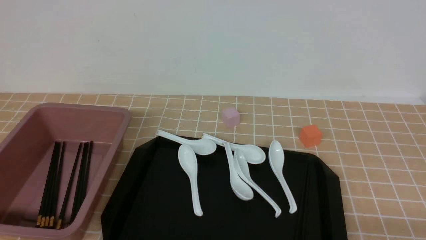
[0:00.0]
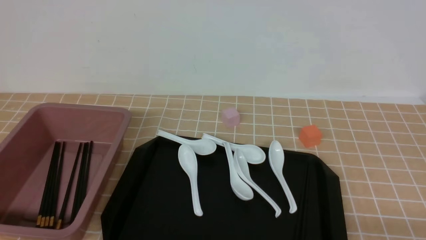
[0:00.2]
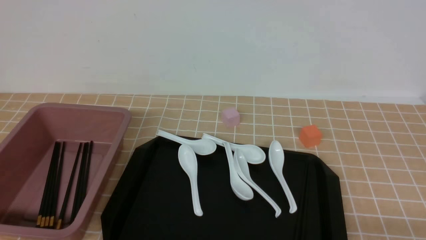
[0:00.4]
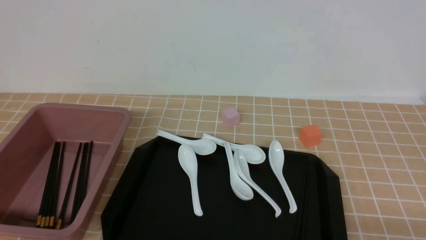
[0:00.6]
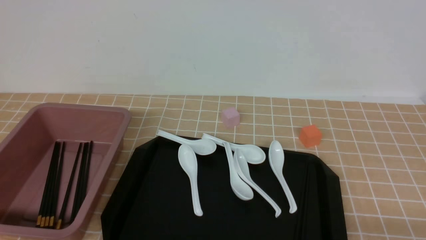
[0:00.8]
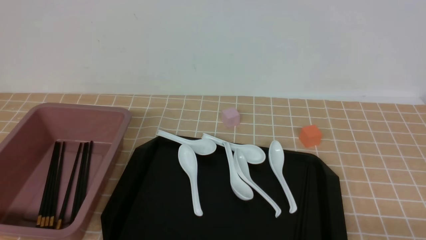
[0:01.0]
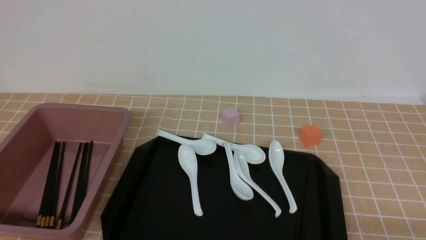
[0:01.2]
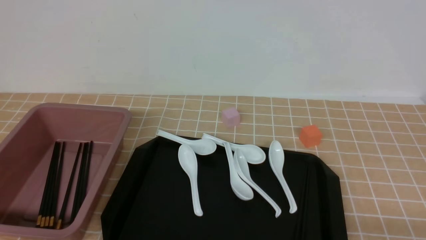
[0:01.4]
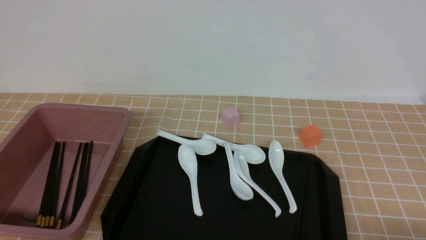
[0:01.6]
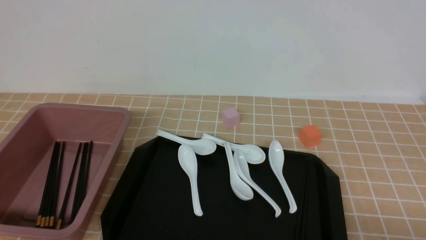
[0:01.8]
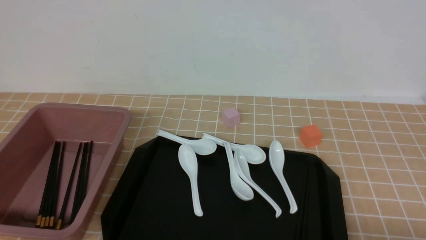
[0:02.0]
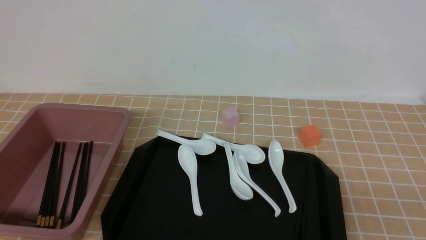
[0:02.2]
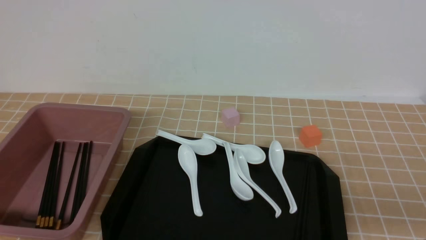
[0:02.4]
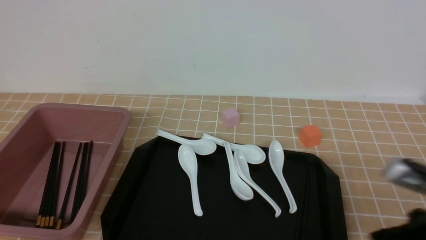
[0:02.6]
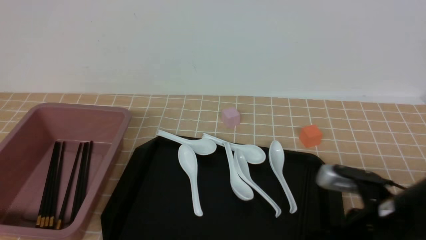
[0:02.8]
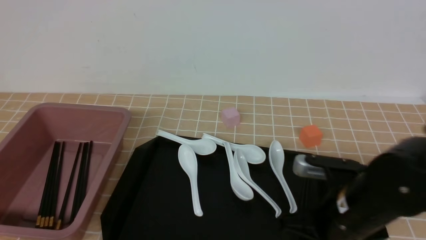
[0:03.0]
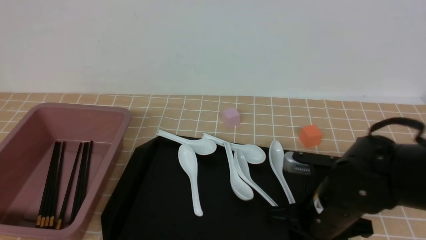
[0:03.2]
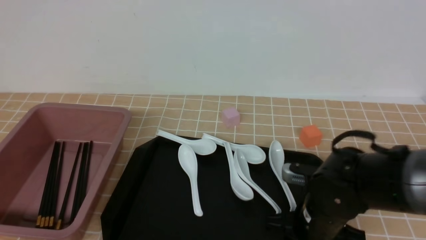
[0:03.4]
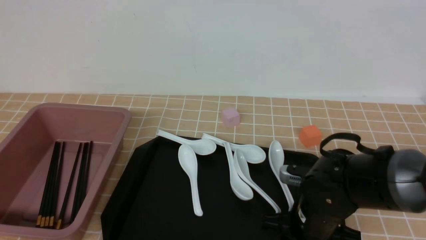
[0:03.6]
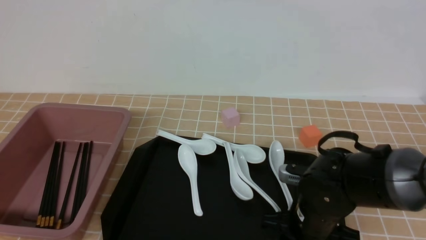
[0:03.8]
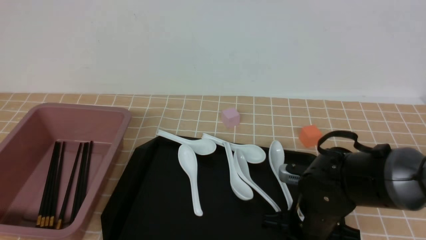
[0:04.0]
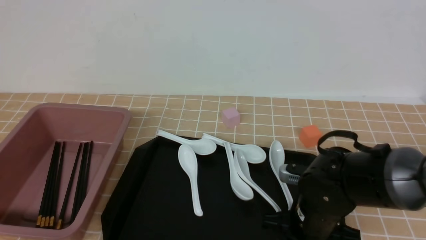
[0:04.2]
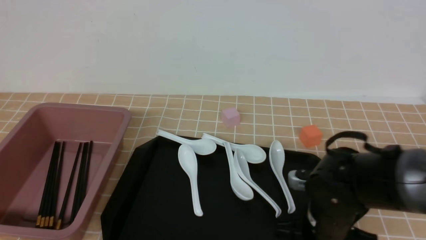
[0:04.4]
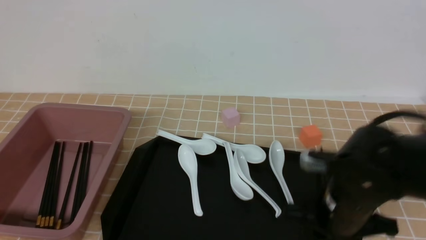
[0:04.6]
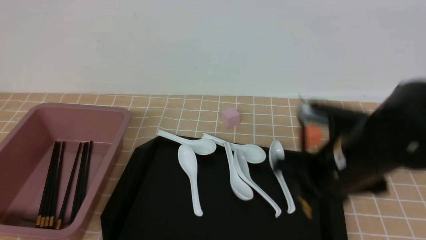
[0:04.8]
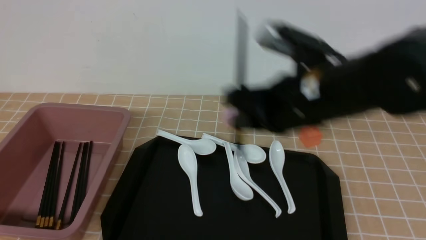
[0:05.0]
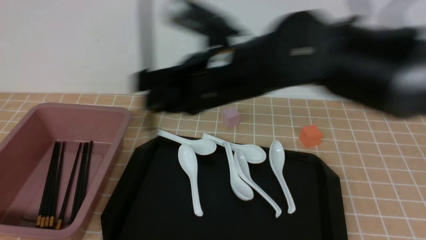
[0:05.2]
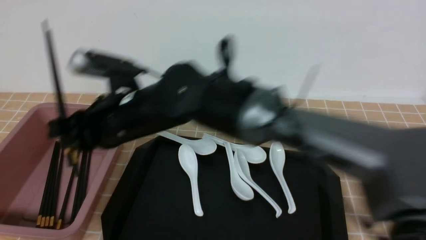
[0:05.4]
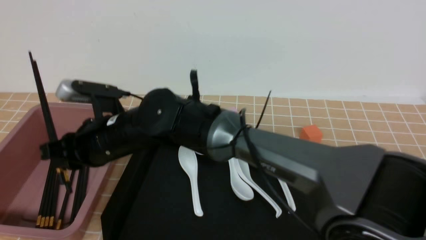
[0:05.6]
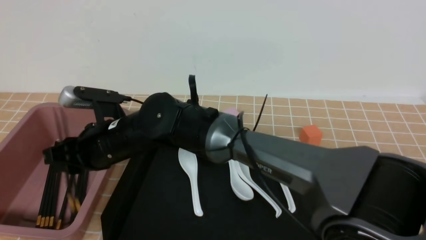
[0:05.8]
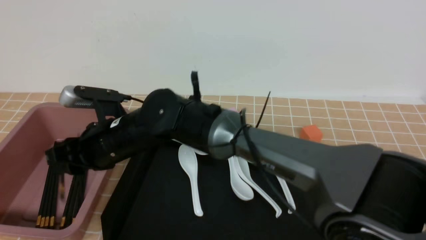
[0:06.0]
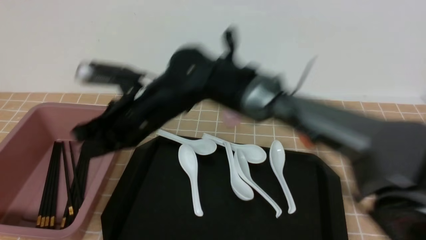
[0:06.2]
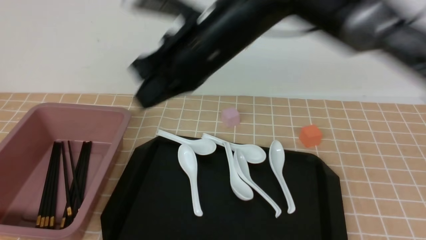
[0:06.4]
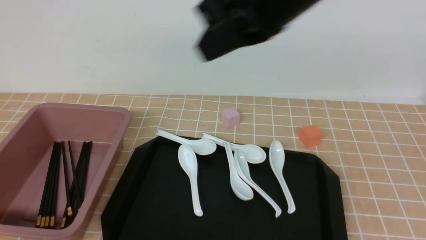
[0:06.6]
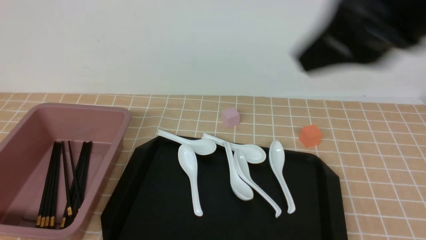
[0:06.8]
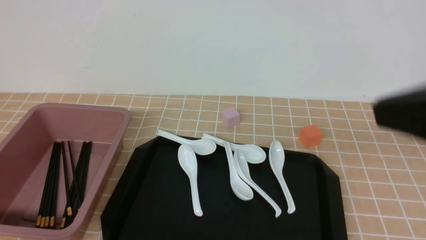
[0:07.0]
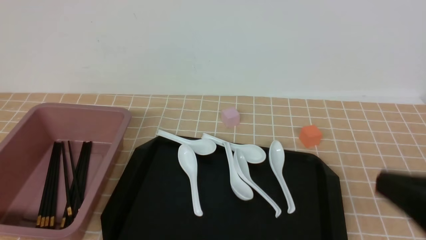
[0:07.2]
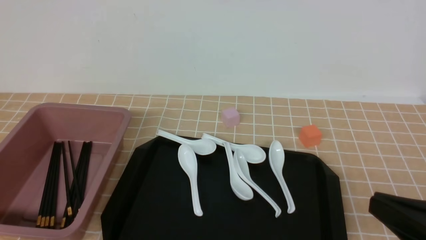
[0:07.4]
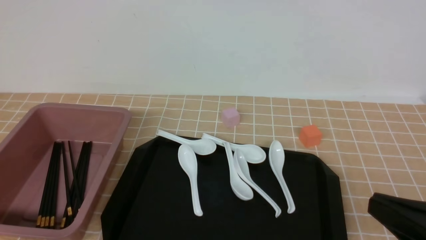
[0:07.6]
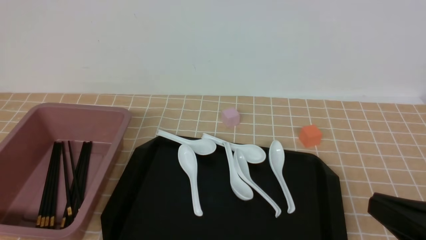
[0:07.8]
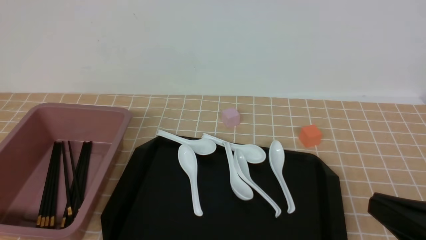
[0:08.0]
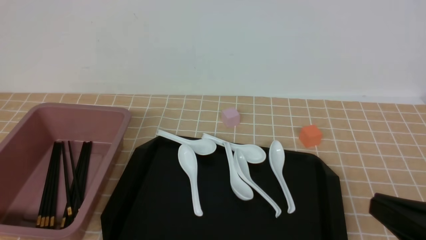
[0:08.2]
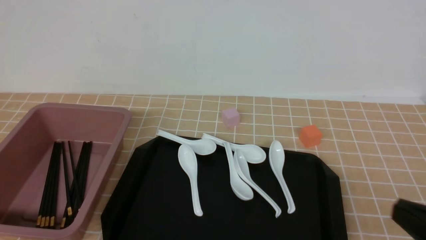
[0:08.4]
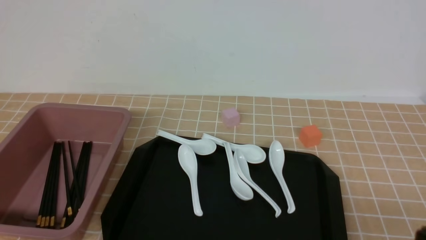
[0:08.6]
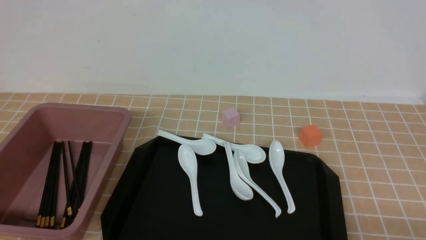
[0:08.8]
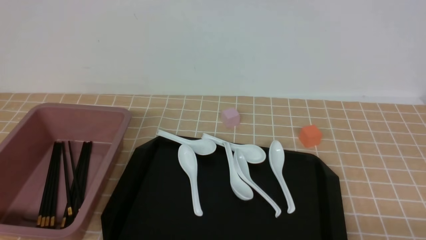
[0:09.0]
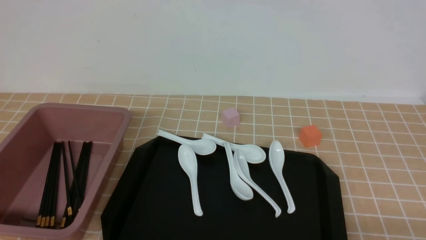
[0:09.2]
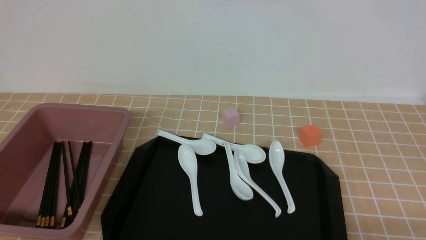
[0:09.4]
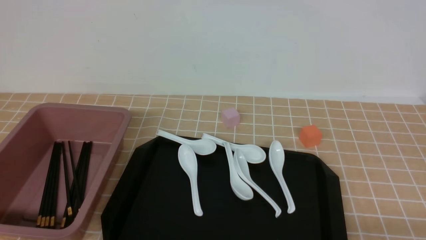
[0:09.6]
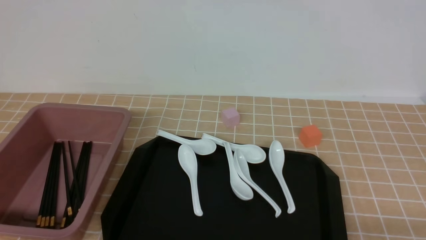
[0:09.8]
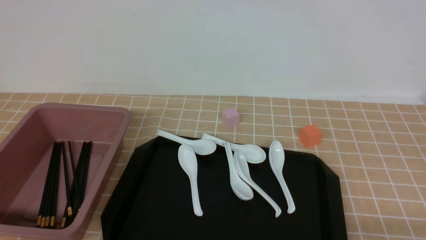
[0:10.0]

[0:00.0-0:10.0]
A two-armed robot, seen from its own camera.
Step, 0:00.0 to 0:04.6: use the right arm to grab a pair of chopsticks.
Step, 0:04.8 to 0:06.0: use the right arm to put the chopsticks into the lunch box.
0:01.4 to 0:02.8: The right gripper travels forward, to the left and upward by approximately 15 cm.
0:02.8 to 0:04.2: The right gripper shifts approximately 15 cm downward, to the left and forward, and opens and closes again.
0:04.2 to 0:05.8: The right gripper travels to the left by some 25 cm.
0:05.8 to 0:07.2: The right gripper is displaced to the right and backward by about 40 cm, and closes up.
0:07.2 to 0:08.6: The right gripper travels downward and to the right by some 15 cm.

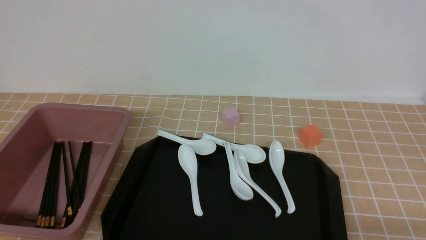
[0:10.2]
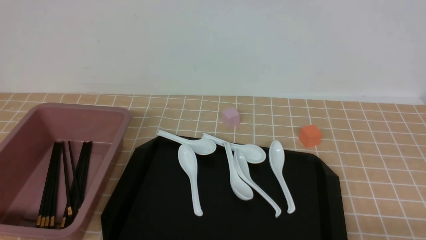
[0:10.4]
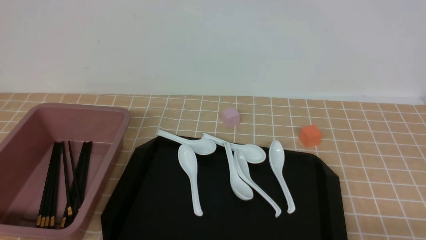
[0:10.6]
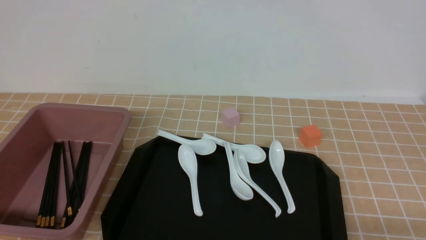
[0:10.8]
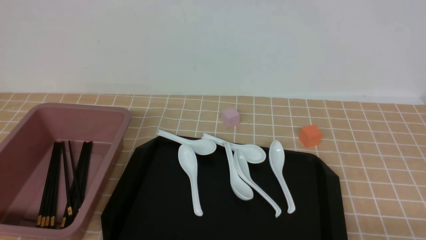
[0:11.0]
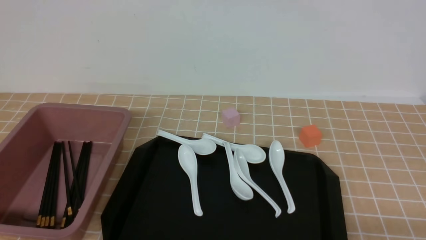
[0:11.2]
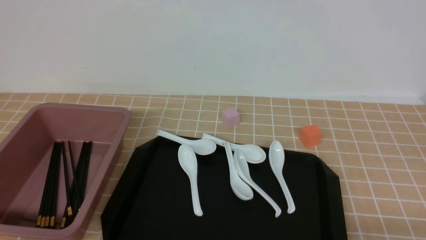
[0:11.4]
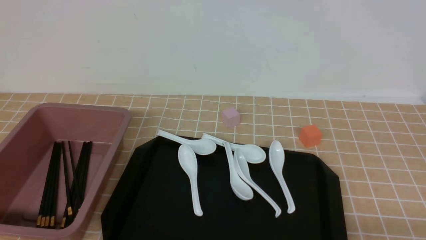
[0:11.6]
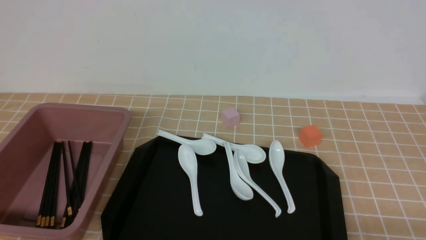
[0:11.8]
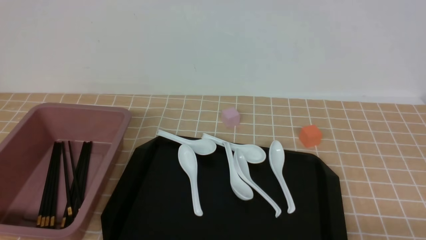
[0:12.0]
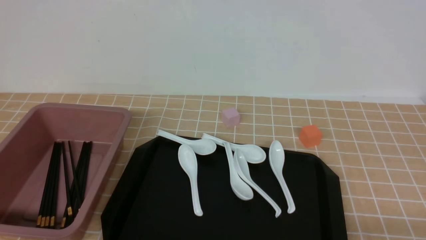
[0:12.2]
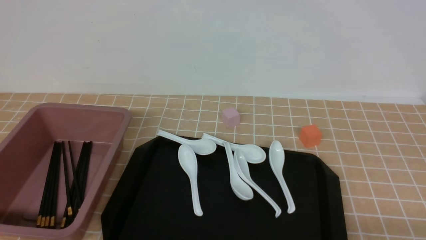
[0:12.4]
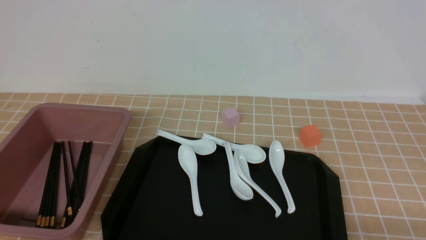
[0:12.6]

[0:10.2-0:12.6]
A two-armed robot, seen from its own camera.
0:10.2 to 0:12.6: The two grippers keep their place.

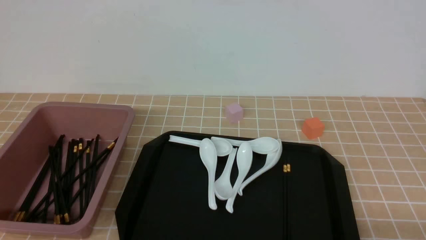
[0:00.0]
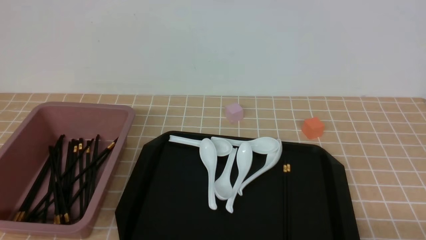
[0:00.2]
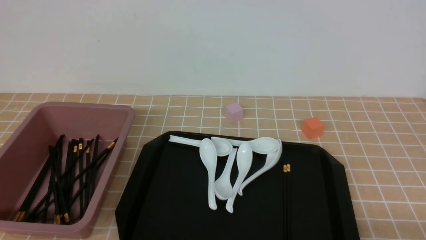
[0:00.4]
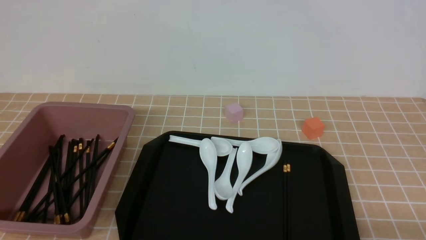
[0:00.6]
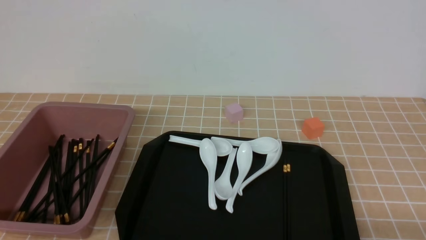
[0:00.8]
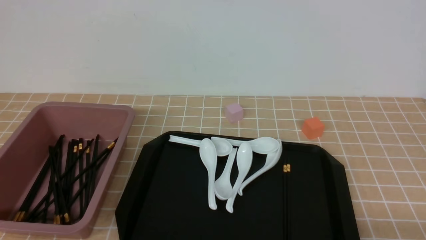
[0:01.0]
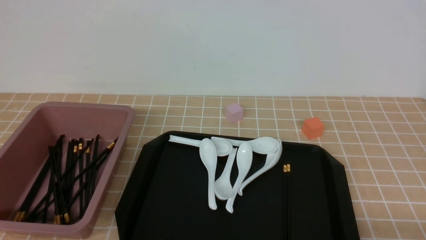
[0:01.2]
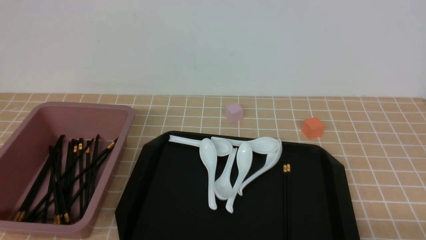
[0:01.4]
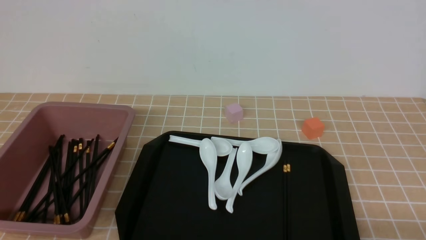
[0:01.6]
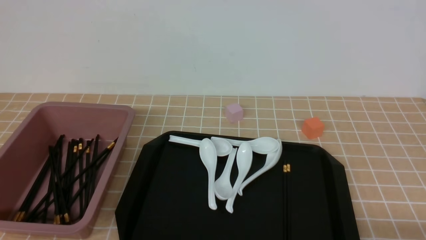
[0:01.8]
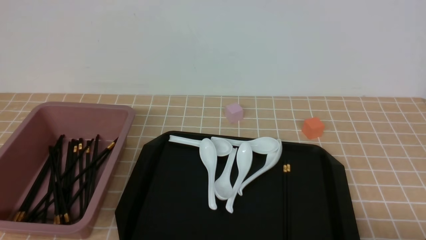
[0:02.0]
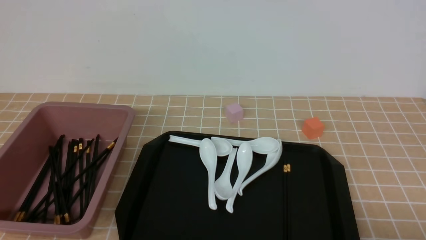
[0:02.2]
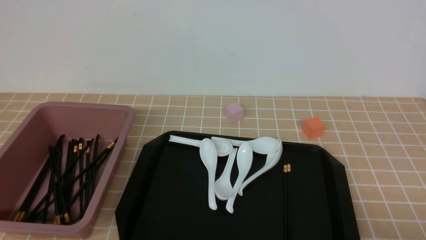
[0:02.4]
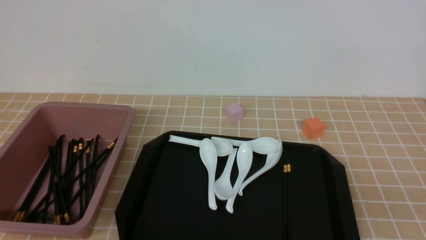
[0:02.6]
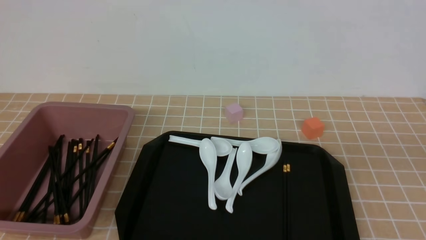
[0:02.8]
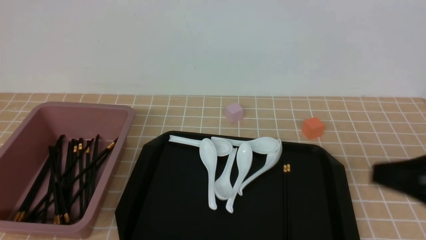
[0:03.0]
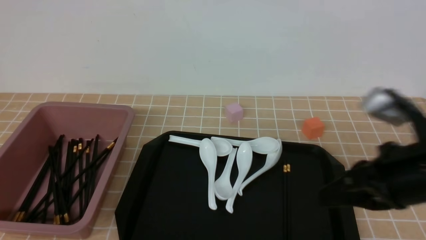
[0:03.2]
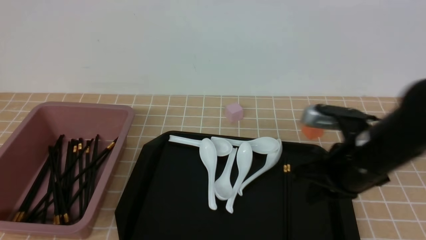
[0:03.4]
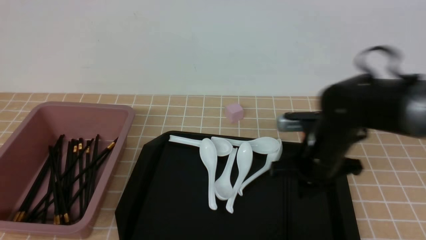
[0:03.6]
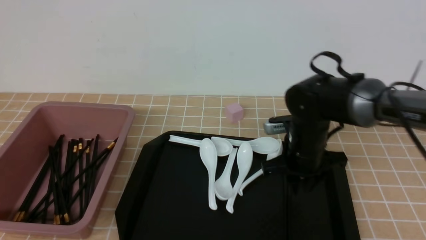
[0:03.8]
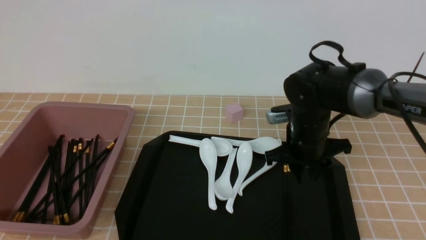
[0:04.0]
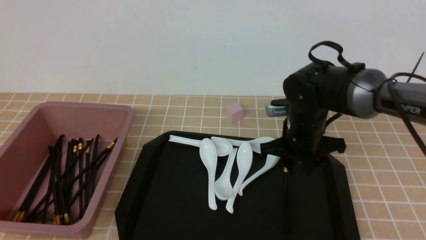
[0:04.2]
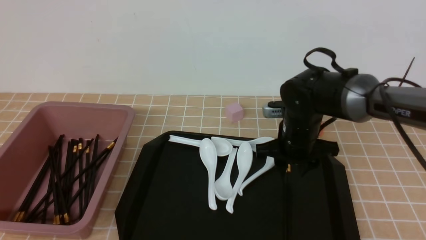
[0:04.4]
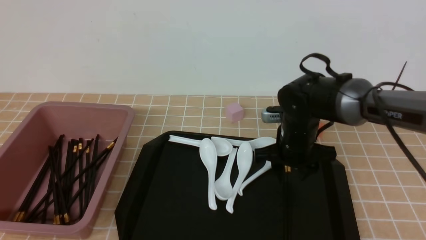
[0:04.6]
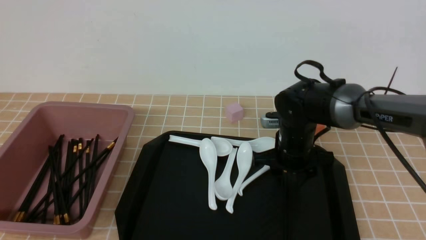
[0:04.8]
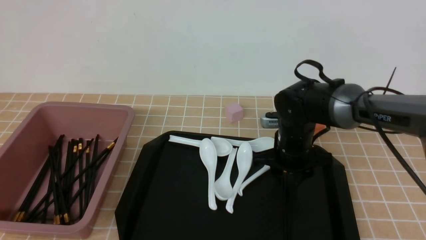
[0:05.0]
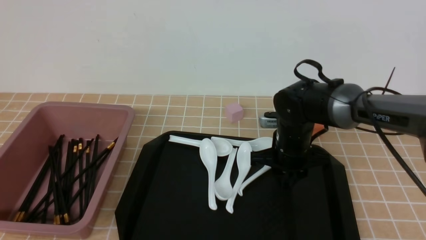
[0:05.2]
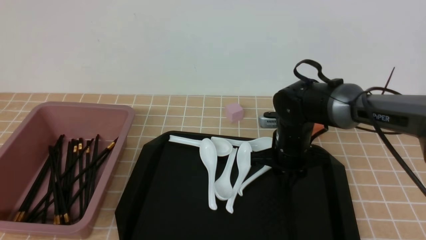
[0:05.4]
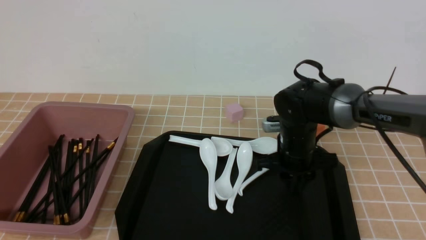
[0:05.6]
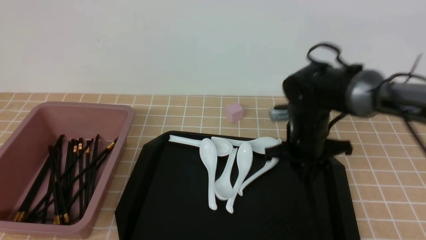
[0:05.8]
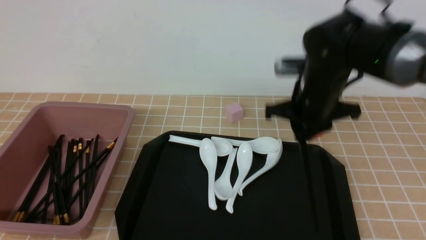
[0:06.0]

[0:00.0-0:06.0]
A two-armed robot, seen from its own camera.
Step, 0:00.0 to 0:05.8: use the right arm to grab a pair of chopsticks.
0:00.0 to 0:01.6: Both grippers stay put.
0:01.6 to 0:03.0: The right gripper is displaced upward and forward by roughly 20 cm, and closes its fingers.
0:03.0 to 0:04.4: The right gripper goes some 30 cm forward, downward and to the left, and opens up.
0:04.4 to 0:06.0: The right gripper moves upward, roughly 10 cm, and closes.
